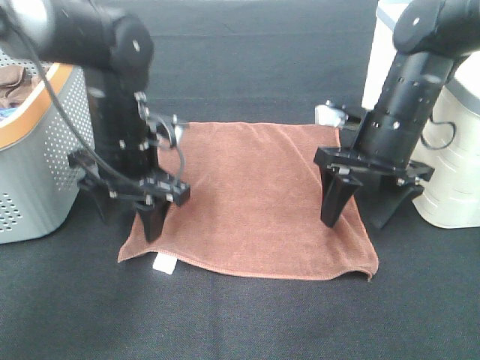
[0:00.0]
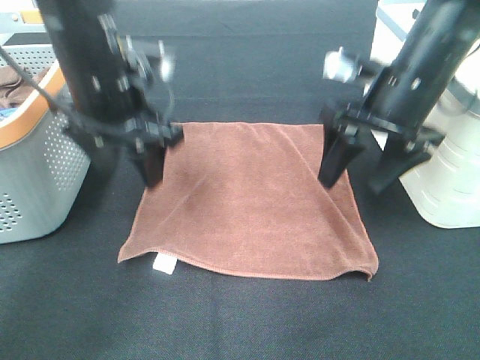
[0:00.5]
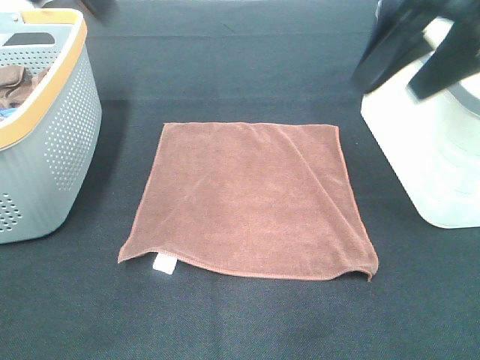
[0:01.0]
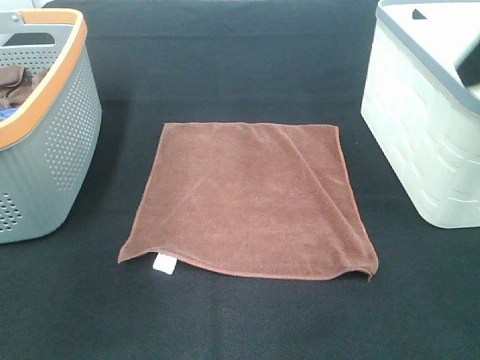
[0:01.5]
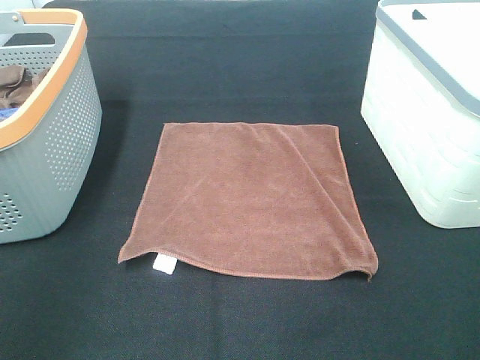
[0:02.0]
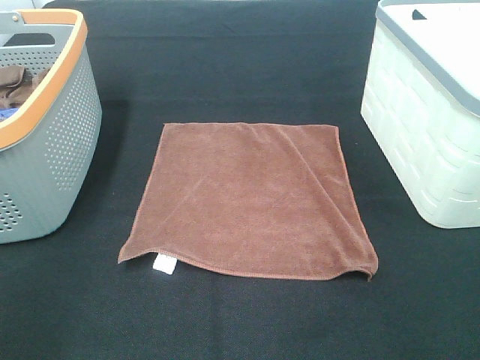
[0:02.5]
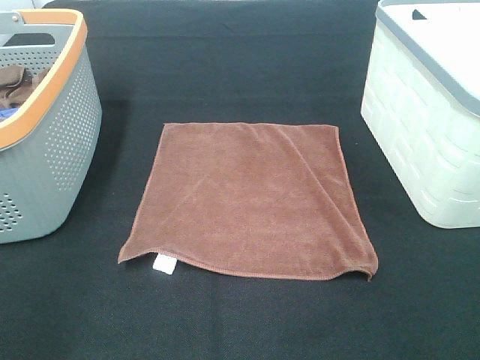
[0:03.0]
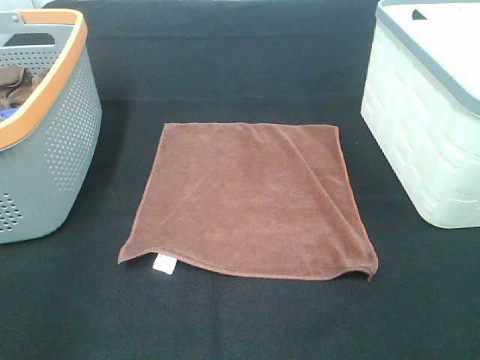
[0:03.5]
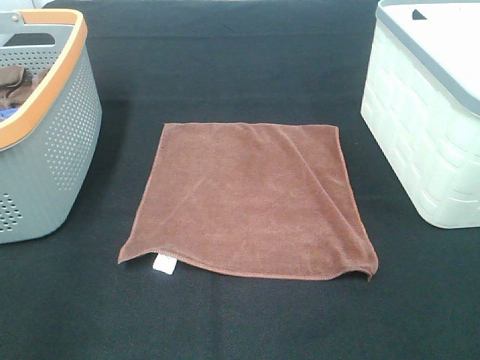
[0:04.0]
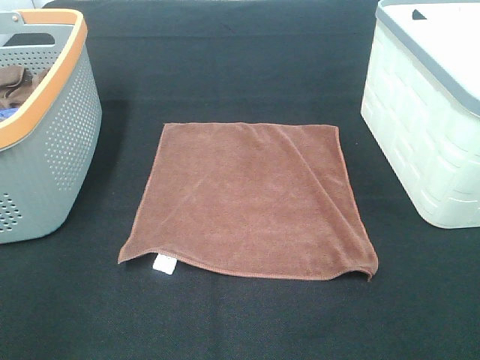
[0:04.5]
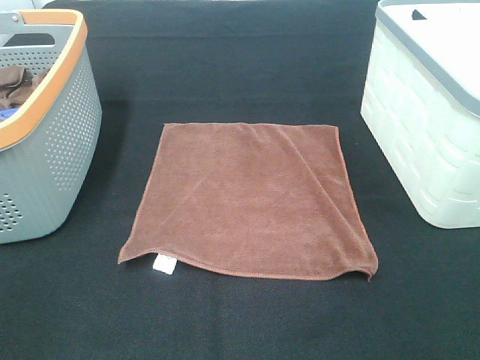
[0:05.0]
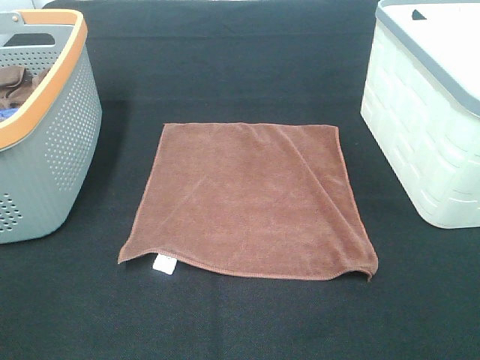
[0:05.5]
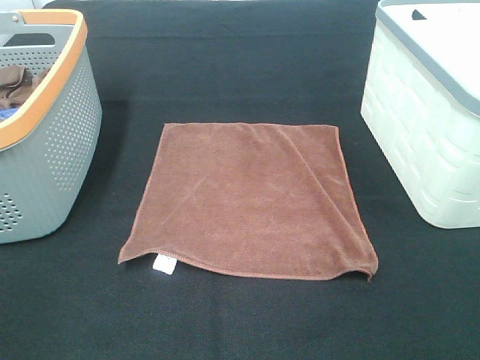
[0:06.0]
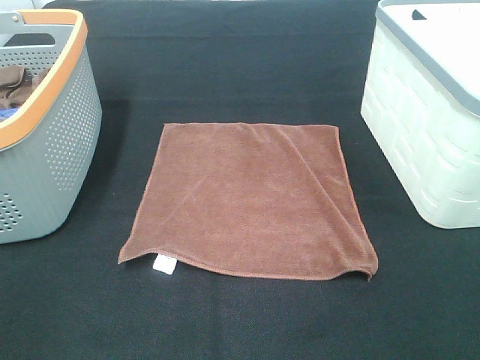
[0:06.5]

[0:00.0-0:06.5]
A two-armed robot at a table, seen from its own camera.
Task of the whole recording: Remove the towel and place it.
0:00.0 to 0:02.0: The left gripper travels backward, to the left and upward by approximately 35 cm, while the right gripper heads backward and upward, covering approximately 30 cm.
